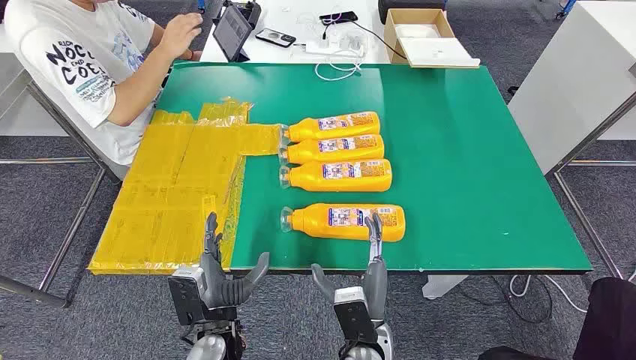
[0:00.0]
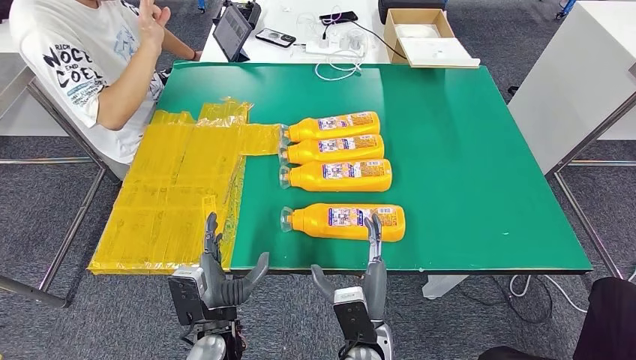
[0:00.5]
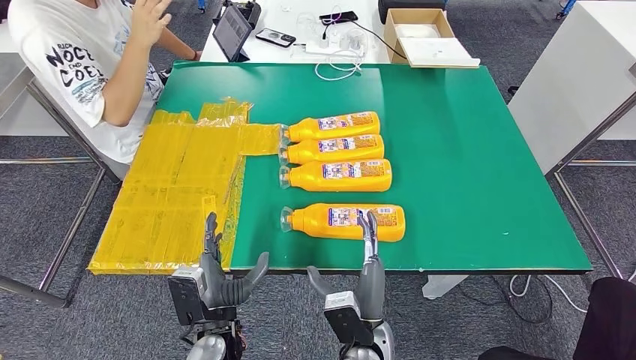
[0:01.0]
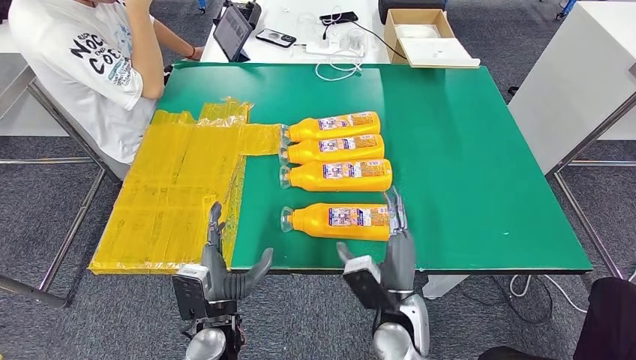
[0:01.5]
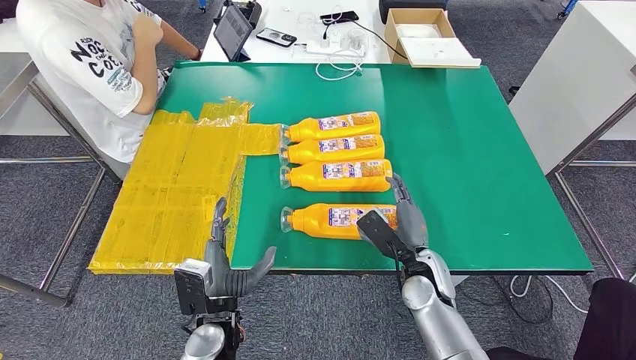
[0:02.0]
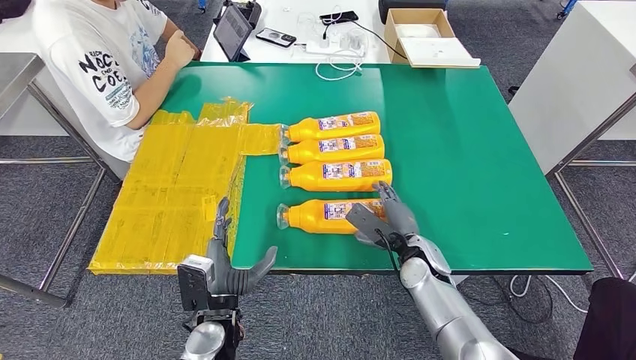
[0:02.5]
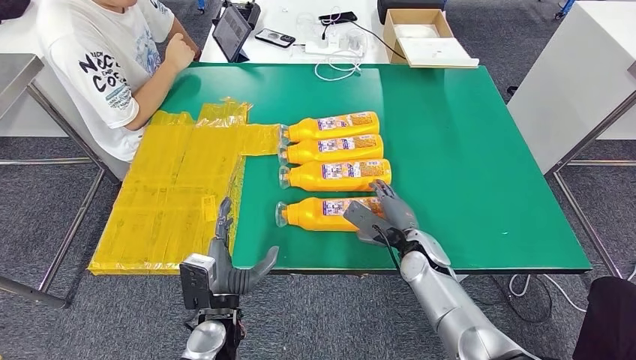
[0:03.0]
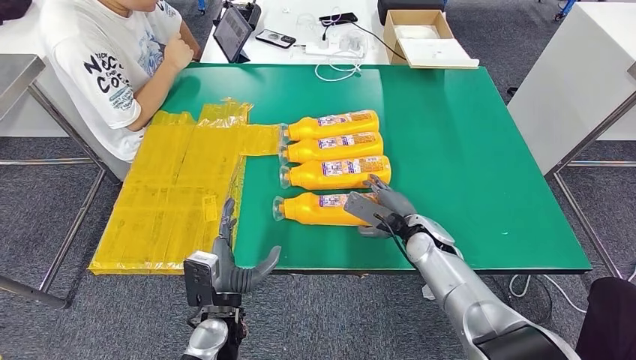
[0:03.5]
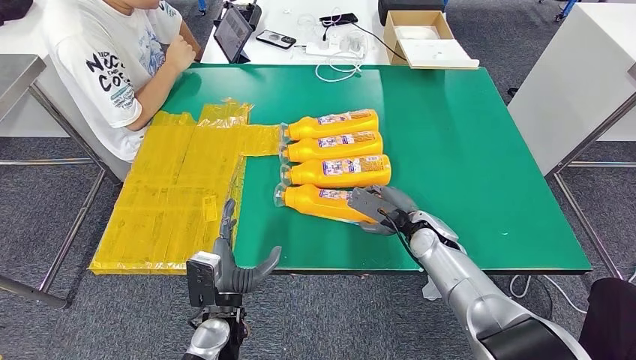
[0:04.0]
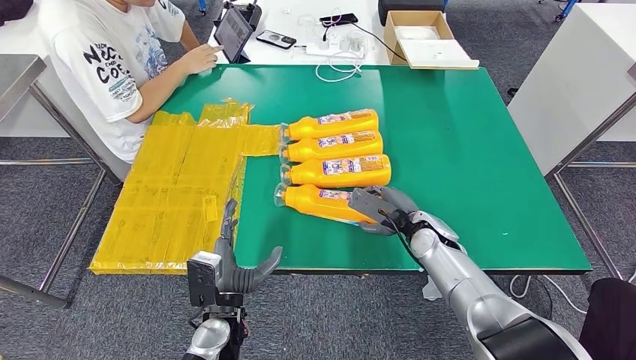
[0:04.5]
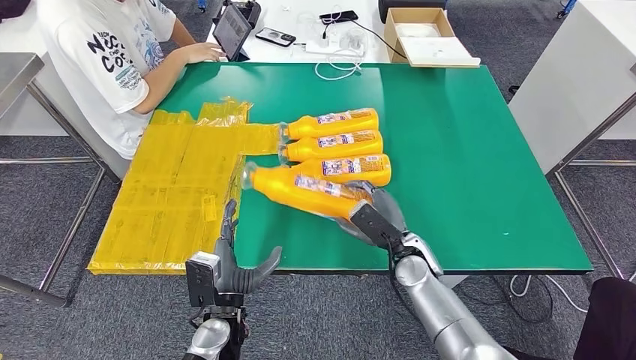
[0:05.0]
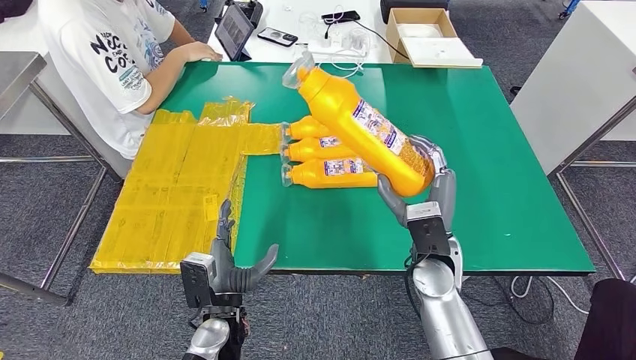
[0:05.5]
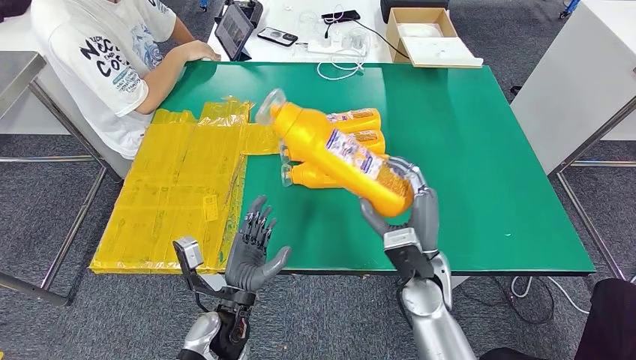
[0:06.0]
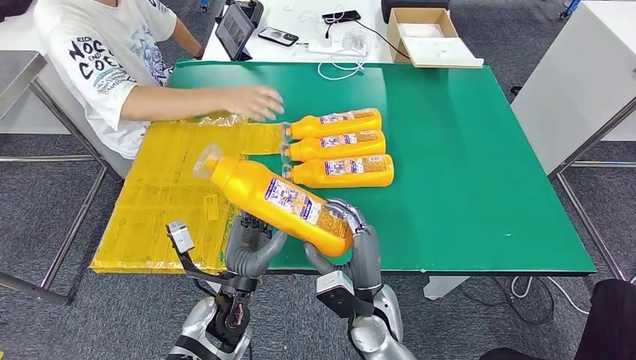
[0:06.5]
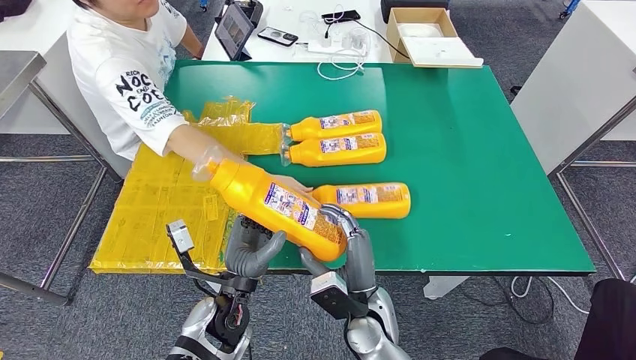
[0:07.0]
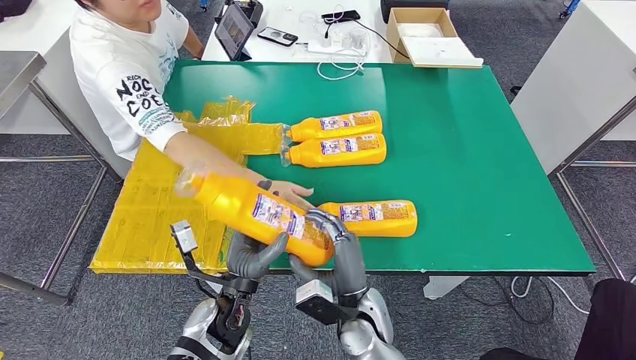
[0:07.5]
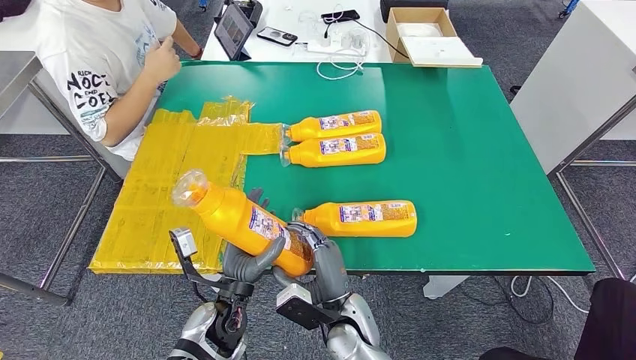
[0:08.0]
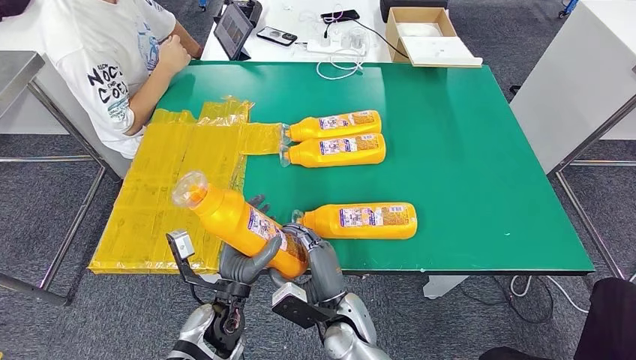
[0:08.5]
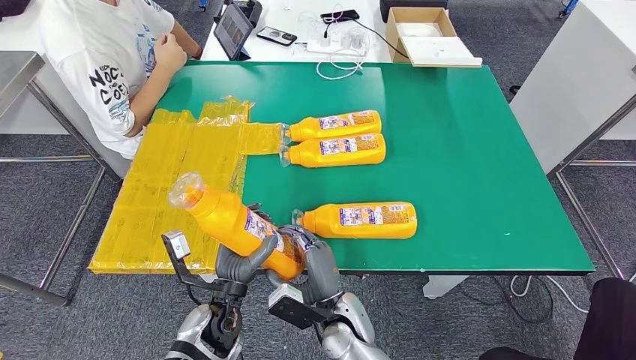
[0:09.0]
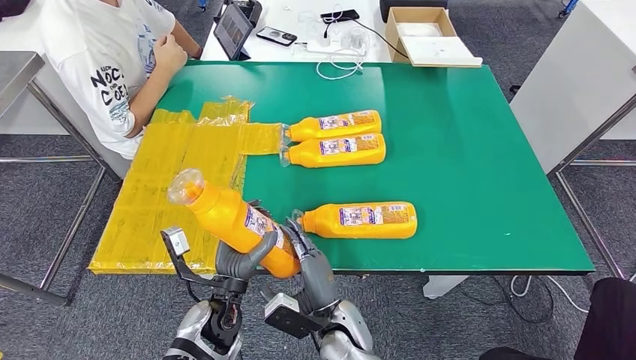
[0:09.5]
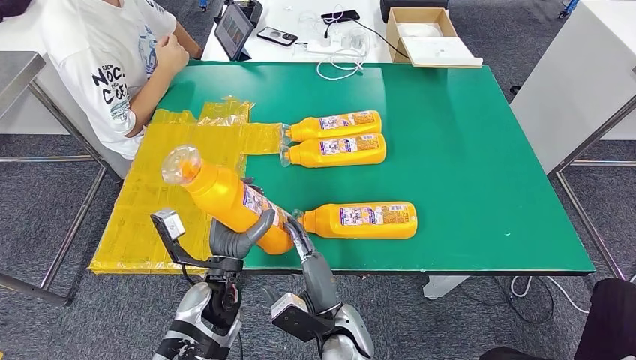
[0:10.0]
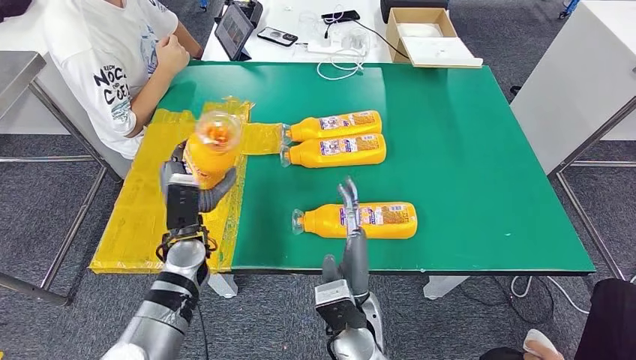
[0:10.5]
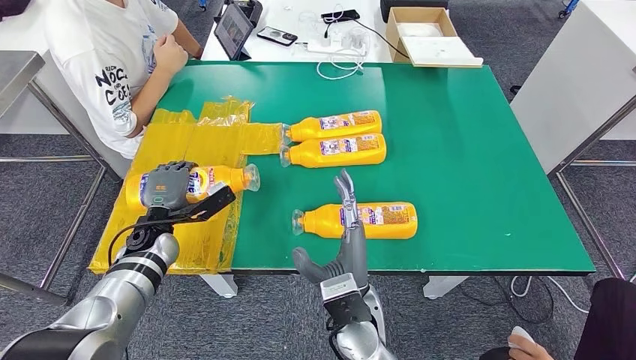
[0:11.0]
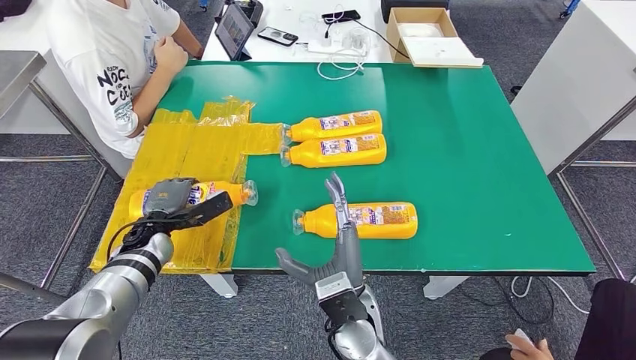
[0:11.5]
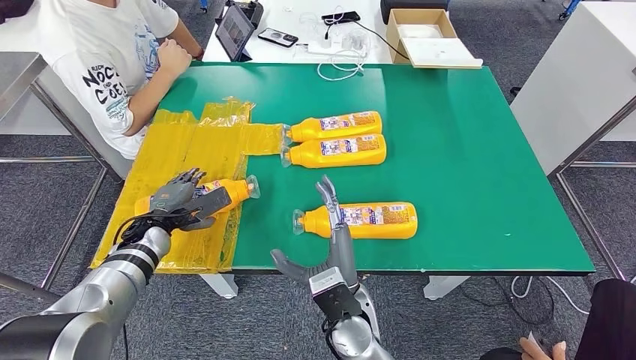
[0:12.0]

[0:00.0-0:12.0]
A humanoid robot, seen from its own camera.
Step, 0:00.0 to 0:05.5: Take the fast-moving consumer goods bottle from the table.
0:02.0 to 0:04.0: The right hand shifts some 10 cm forward.
0:06.0 to 0:08.0: The right hand heads to the left, downward and backward, covering some 15 cm.
0:08.0 to 0:10.0: The hands stay close to where they were, moving slightly.
0:10.0 to 0:12.0: The right hand moves upward, approximately 5 cm. The left hand goes approximately 20 cm to the left and forward.

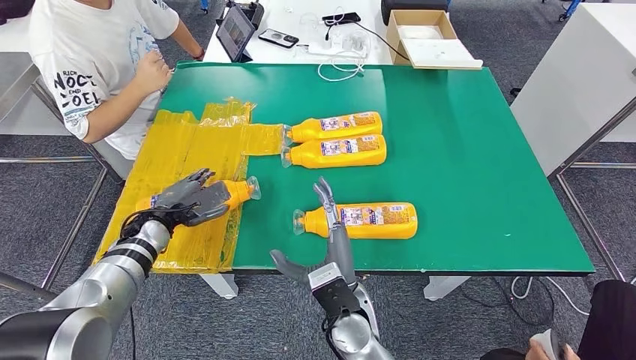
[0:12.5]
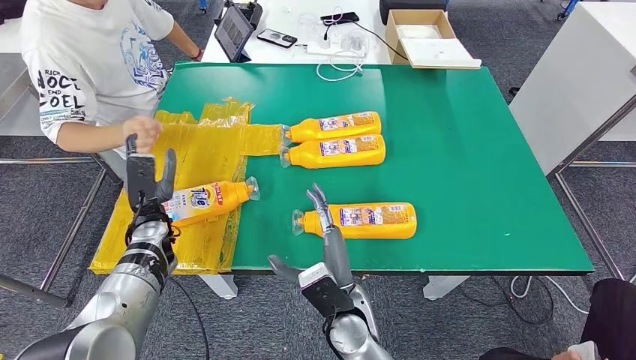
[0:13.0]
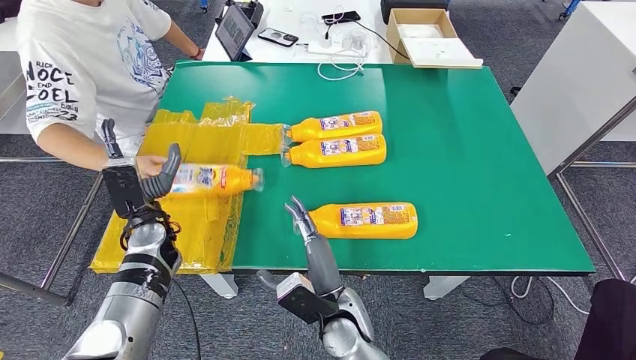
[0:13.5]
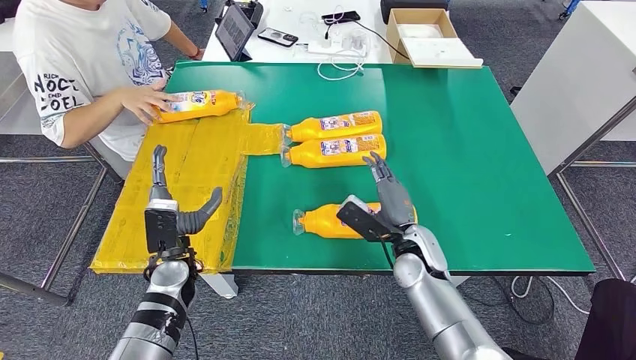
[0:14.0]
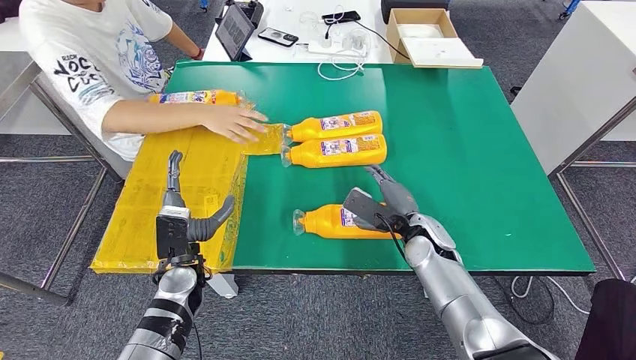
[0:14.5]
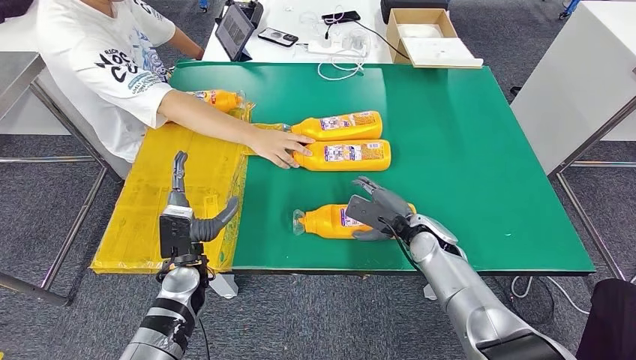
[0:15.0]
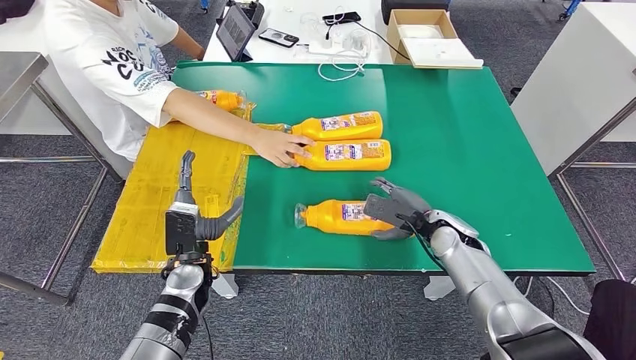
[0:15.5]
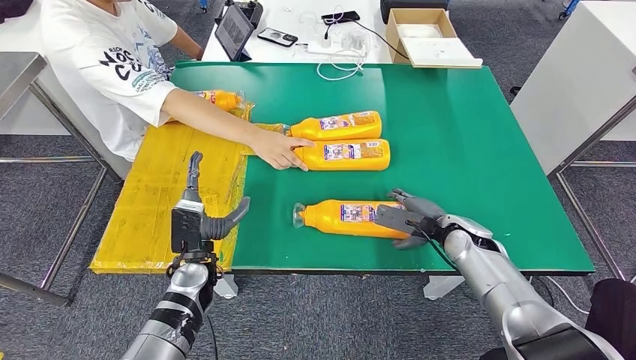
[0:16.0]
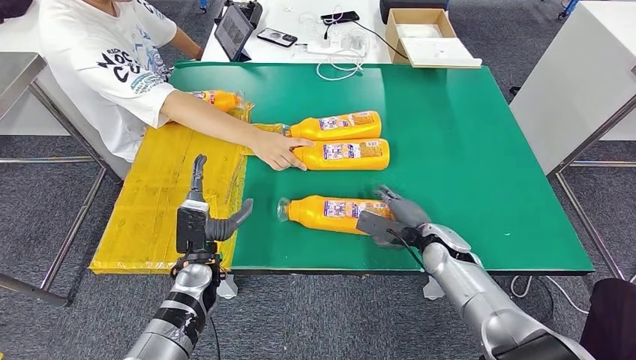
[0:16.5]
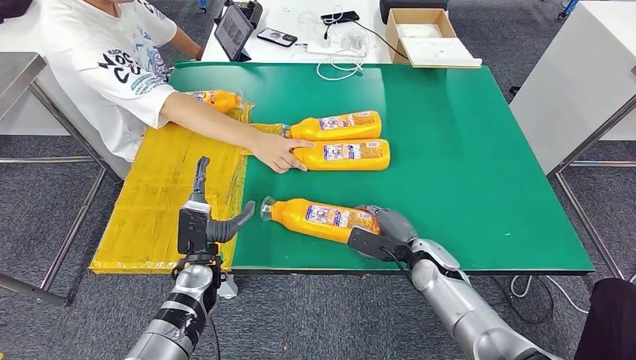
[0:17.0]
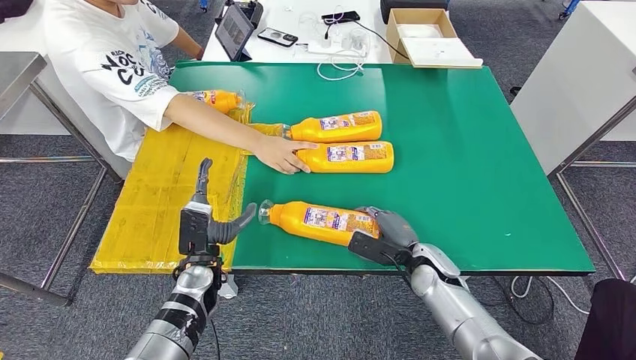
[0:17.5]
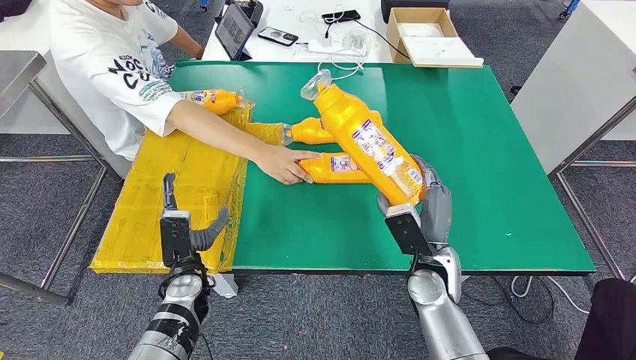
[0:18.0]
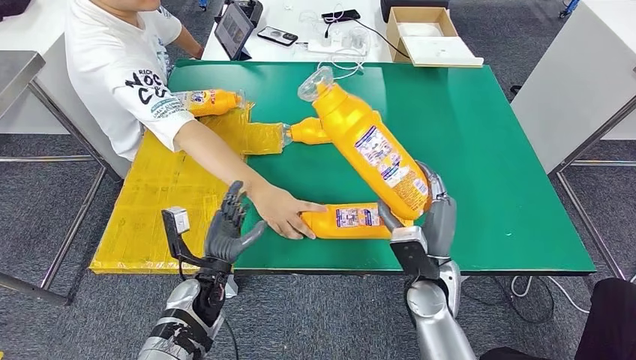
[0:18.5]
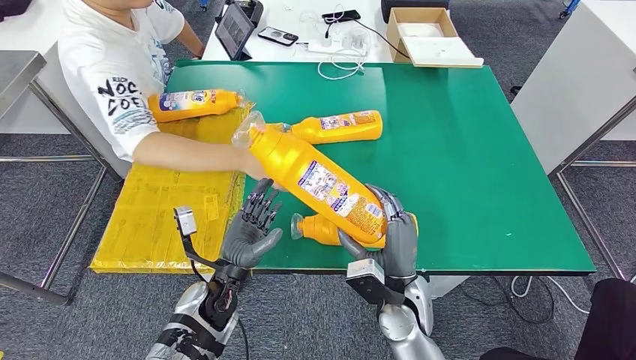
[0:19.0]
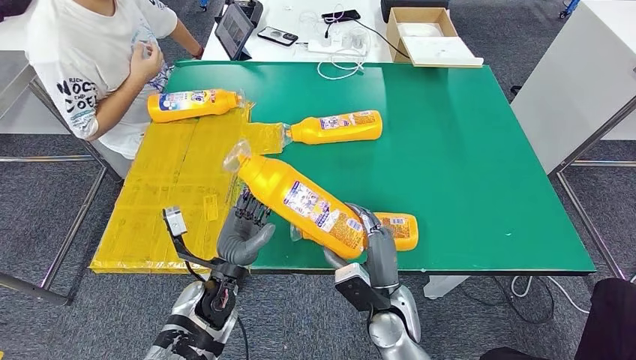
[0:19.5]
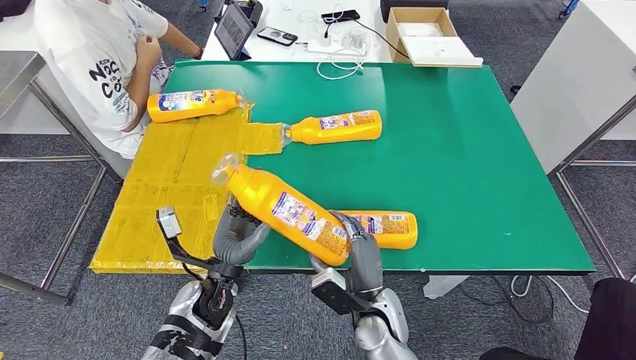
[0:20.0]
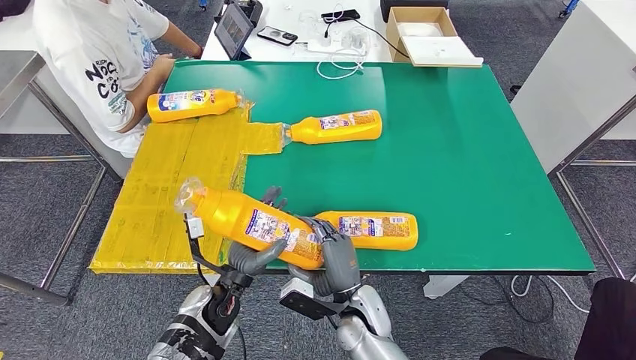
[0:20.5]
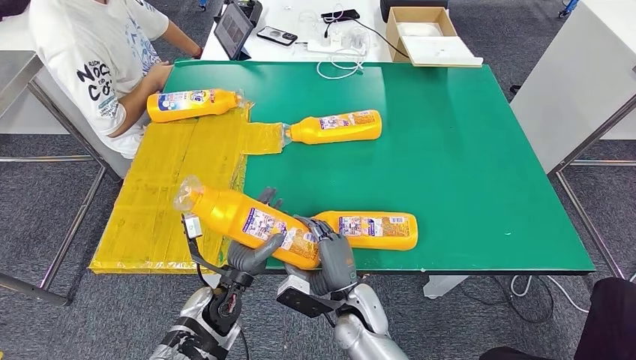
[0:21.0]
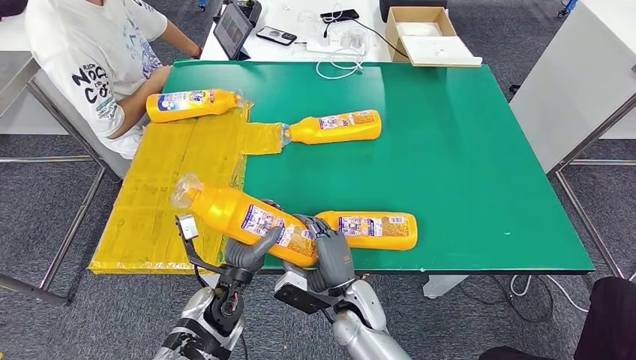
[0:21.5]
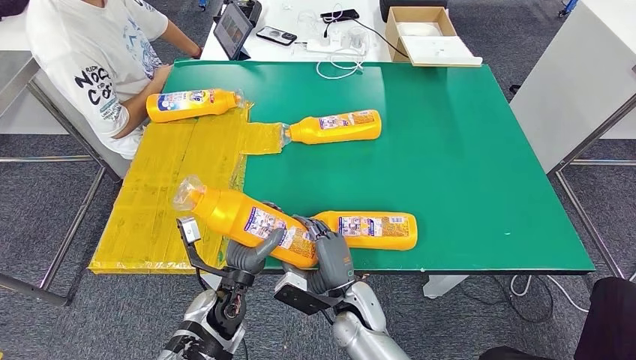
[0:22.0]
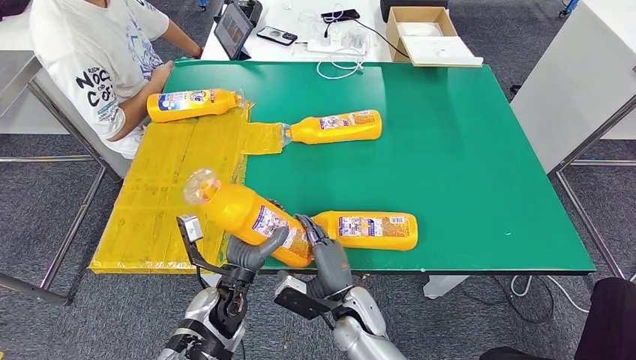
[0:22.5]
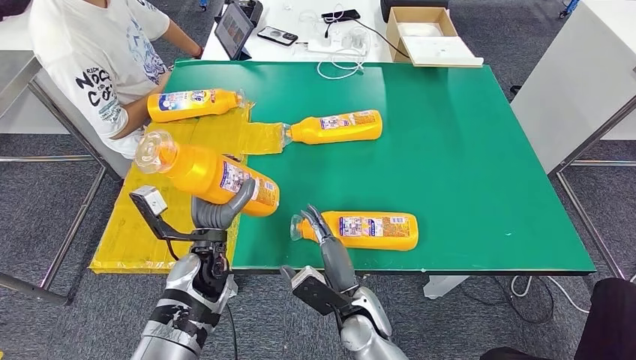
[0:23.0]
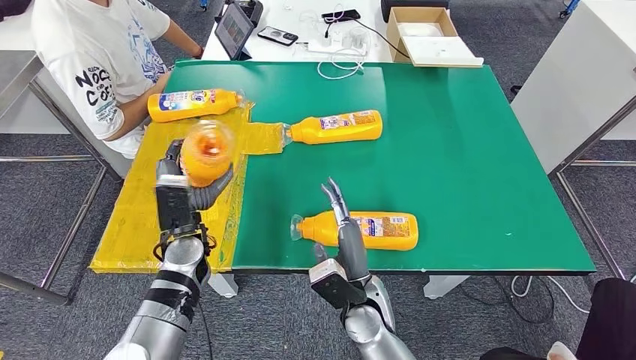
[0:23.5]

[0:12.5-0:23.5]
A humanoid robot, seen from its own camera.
Step, 0:13.0 to 0:18.5: Pick up the fast-moving consumer goods bottle from the table.
0:14.5 to 0:16.0: The right hand is displaced to the right by some 10 cm.
0:16.0 to 0:18.0: The right hand shifts about 10 cm to the left and backward.
0:20.0 to 0:21.5: There are only small adjustments of the hands.
0:21.5 to 0:23.5: The left hand moves forward, upward and to the left, approximately 10 cm. Meanwhile the right hand is displaced upward by about 5 cm.
